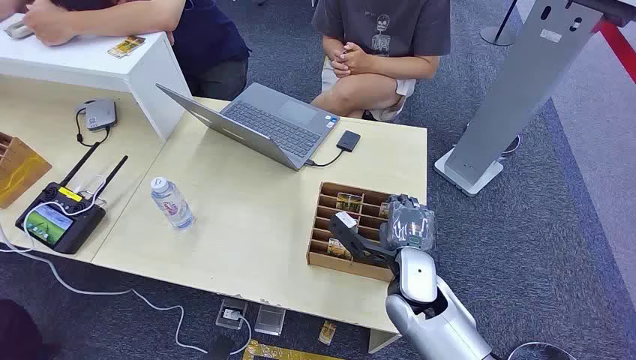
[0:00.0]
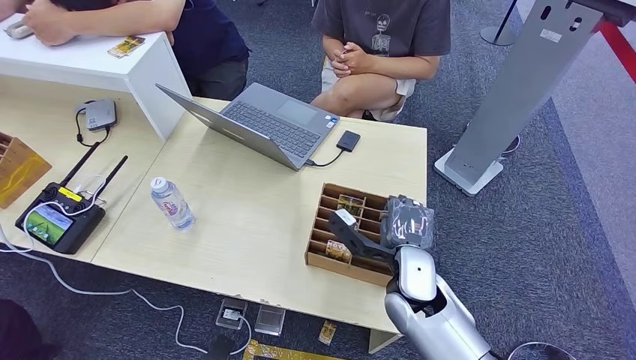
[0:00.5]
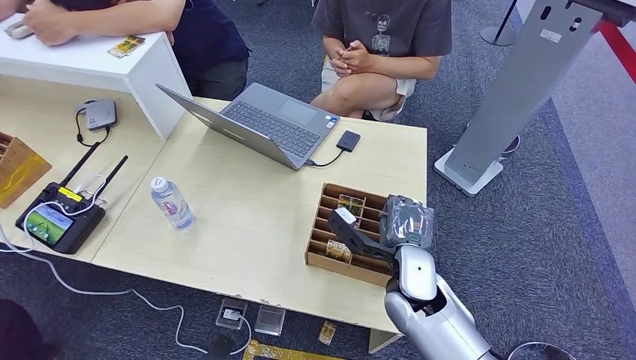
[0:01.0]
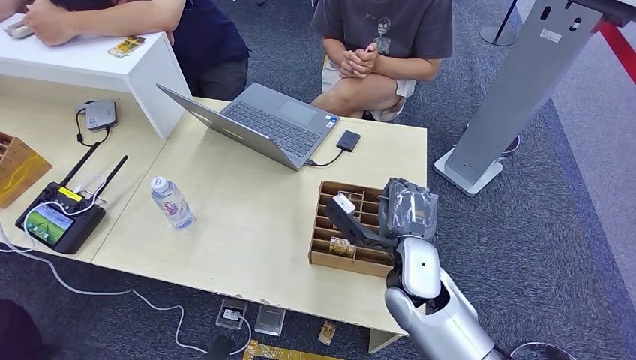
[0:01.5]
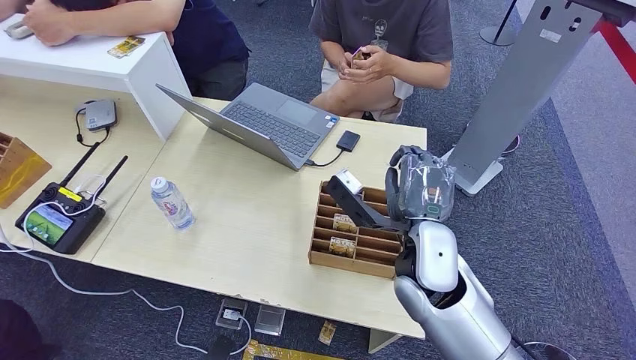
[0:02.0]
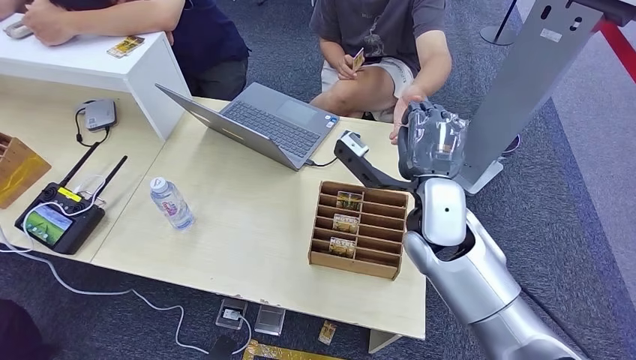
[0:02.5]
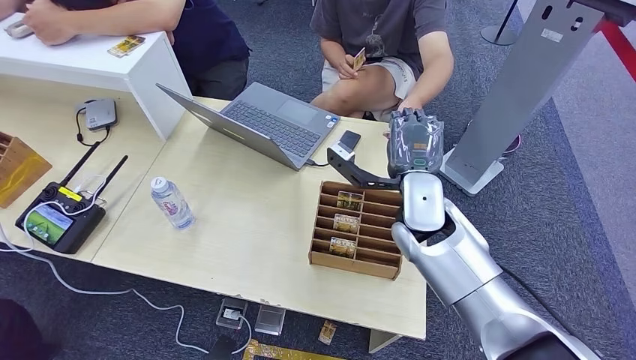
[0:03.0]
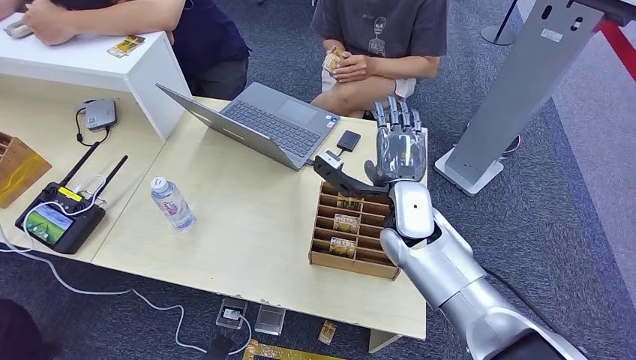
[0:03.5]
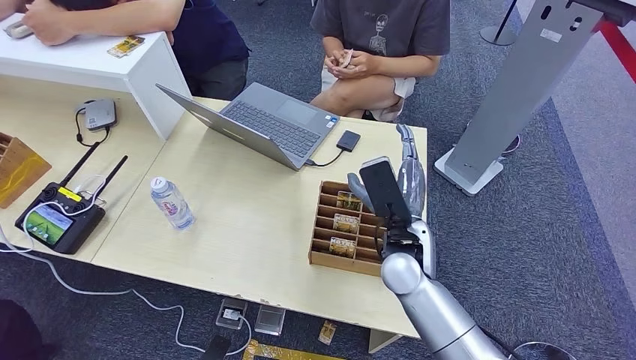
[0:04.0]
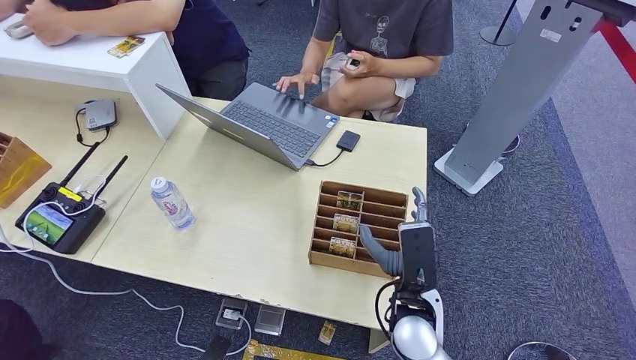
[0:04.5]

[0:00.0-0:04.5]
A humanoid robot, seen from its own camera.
Step, 0:00.0 to 0:01.5: Pick up the room card from the card holder.
Step, 0:02.5 to 0:04.5: Hand the room card to the target.
0:02.0 to 0:04.5: The right hand heads downward and backward, covering some 15 cm.
